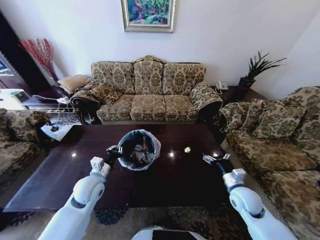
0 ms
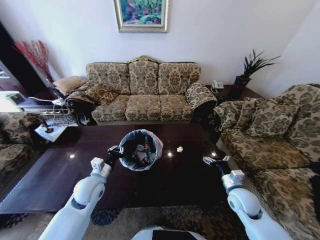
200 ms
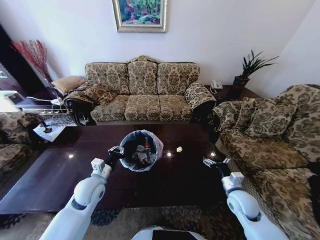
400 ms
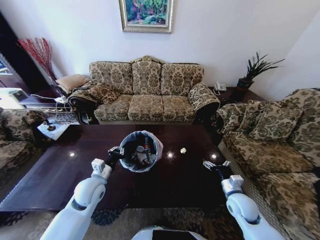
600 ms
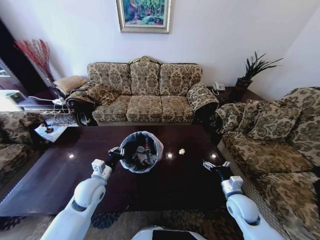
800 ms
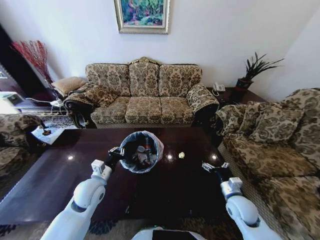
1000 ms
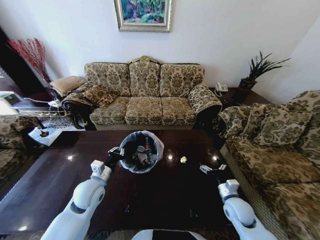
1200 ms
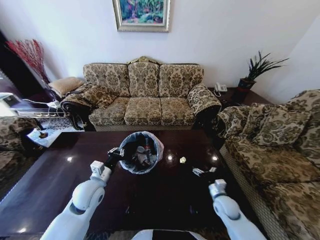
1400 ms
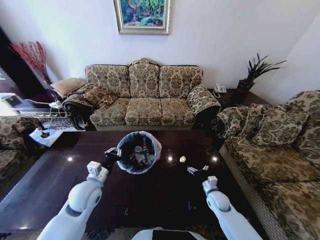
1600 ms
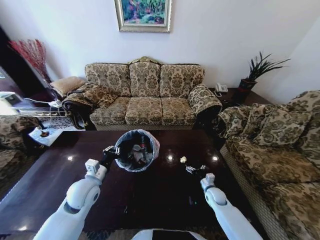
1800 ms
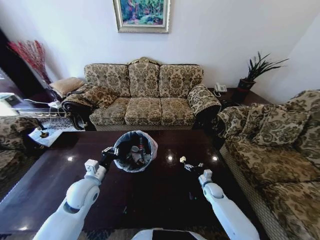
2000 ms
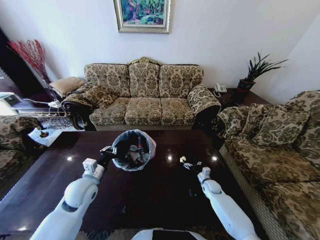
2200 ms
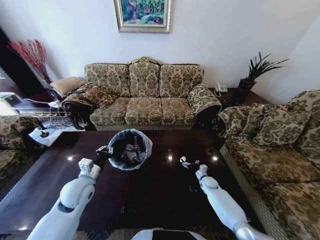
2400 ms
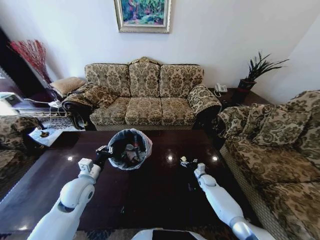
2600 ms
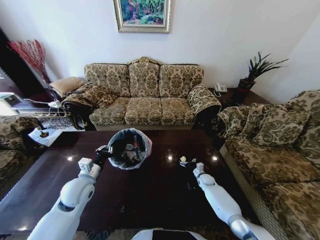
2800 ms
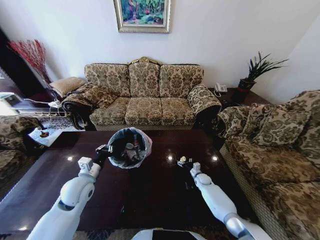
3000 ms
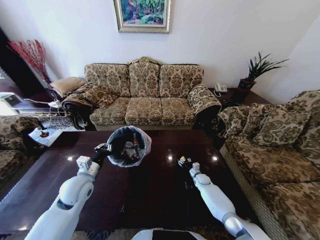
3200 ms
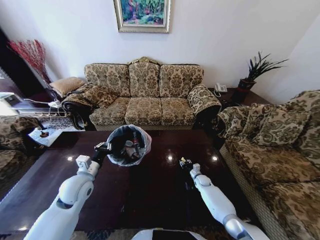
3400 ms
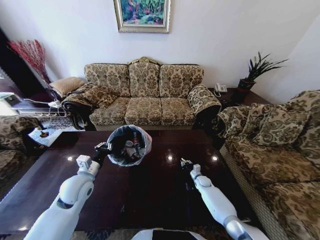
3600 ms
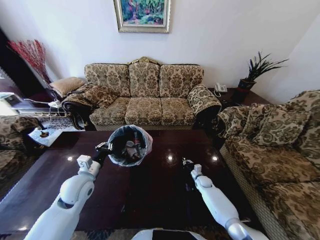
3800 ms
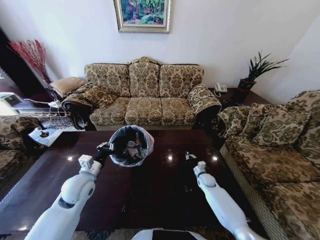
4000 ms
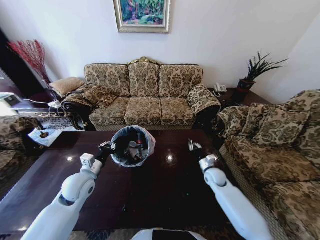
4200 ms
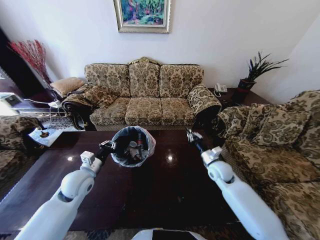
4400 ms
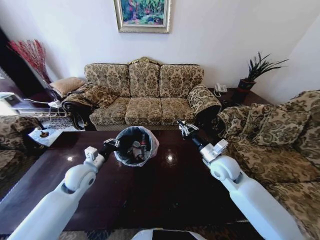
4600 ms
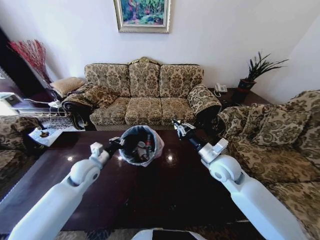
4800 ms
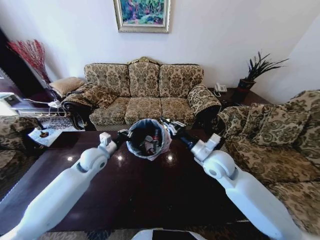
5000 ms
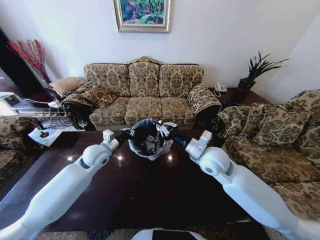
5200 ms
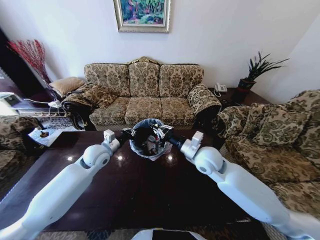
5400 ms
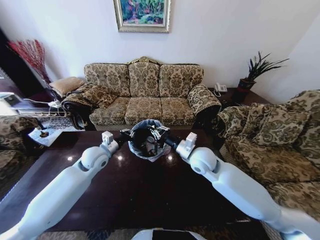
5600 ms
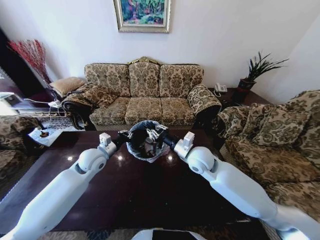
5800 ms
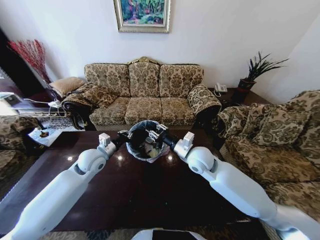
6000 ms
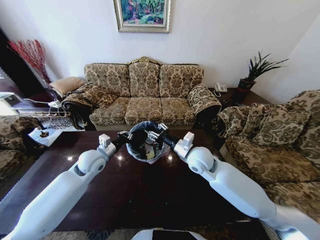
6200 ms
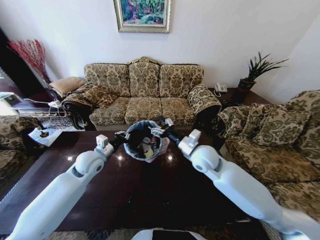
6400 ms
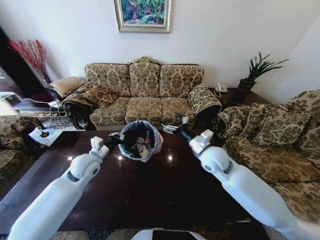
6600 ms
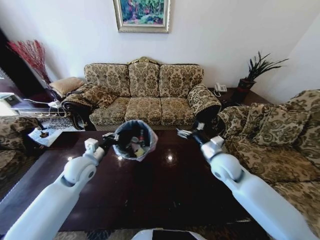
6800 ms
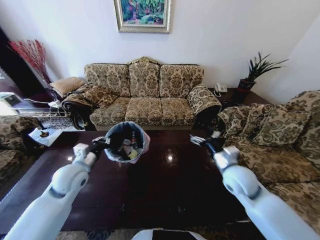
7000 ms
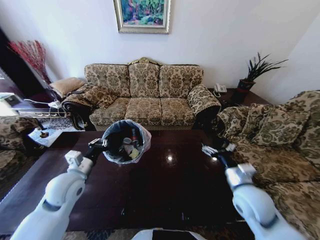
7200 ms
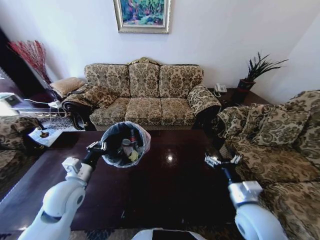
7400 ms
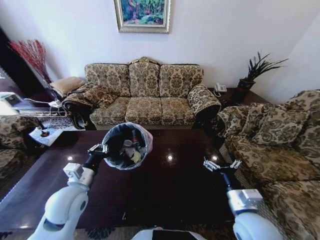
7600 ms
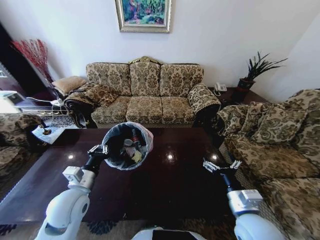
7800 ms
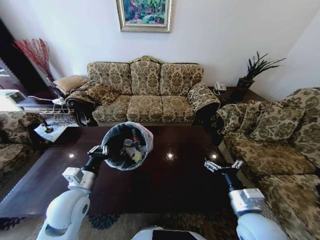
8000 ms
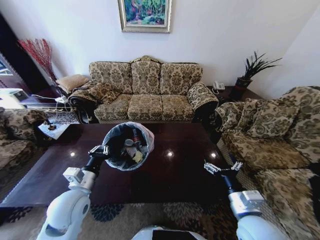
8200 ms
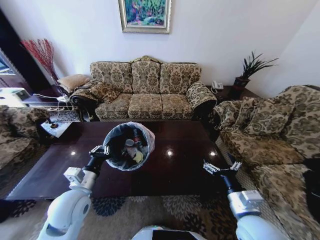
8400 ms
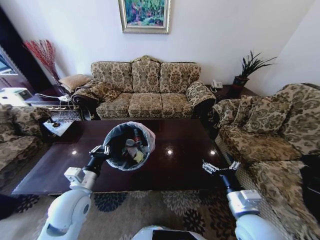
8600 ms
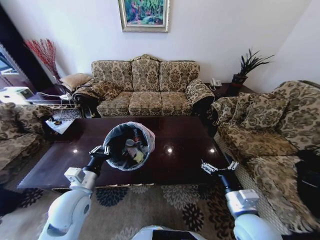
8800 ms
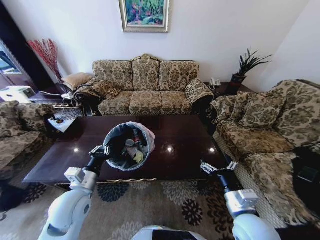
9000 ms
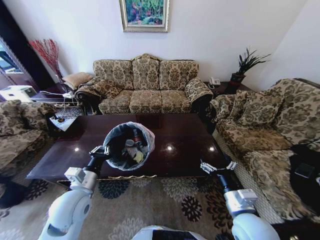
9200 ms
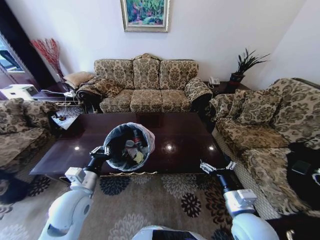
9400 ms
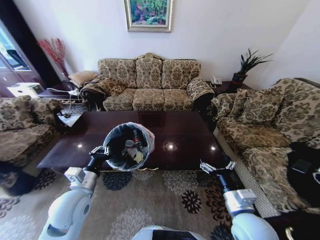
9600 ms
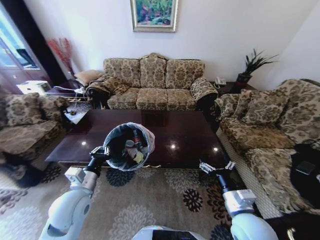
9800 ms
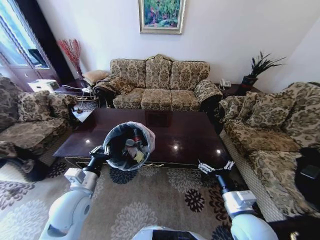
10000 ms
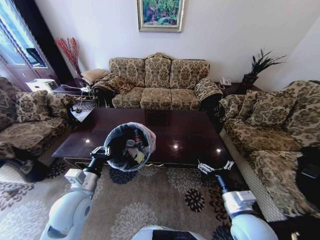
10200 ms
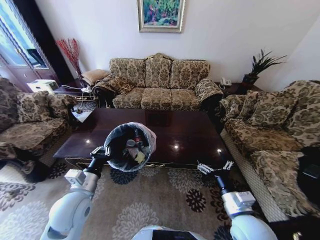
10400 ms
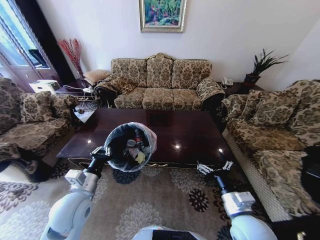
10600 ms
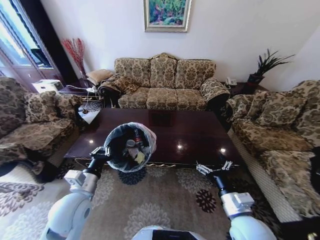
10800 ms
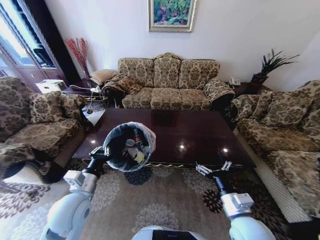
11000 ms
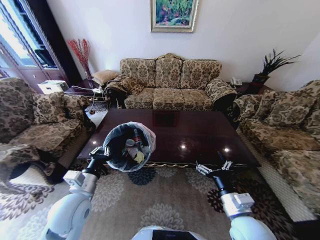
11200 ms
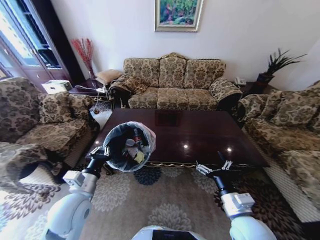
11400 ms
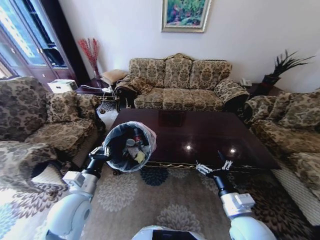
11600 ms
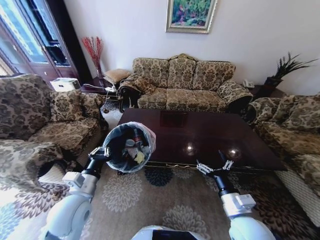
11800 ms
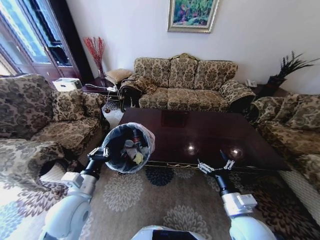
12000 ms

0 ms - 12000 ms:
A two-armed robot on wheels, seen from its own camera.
Task of the whole recording: Move to the front of the table and place the trash on the table into the trash bin.
0 ms - 1600 ms: The right gripper is displaced downward by some 15 cm.
1600 ms - 3000 ms: The right gripper heads forward and downward, covering roughly 15 cm.
3000 ms - 4400 ms: The right gripper is displaced upward by approximately 25 cm, and closes.
4400 ms - 6000 ms: The left gripper travels forward by some 10 cm, while the right gripper shifts about 15 cm to the left and upward.
6000 ms - 7600 ms: The right gripper moves backward and to the right, roughly 25 cm, and opens up, while the left gripper heads backward, covering approximately 15 cm.

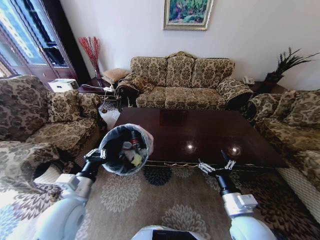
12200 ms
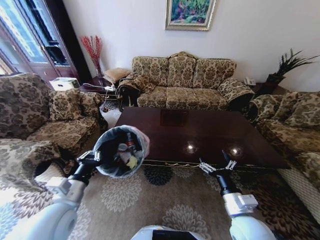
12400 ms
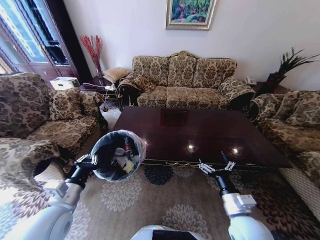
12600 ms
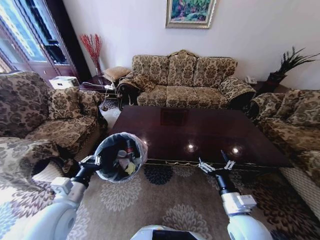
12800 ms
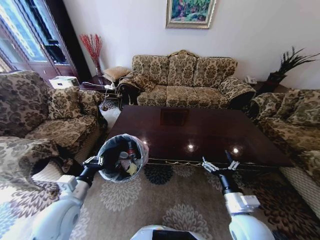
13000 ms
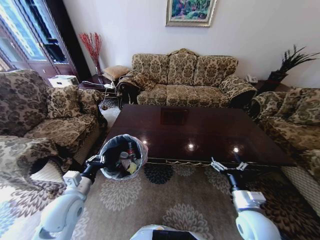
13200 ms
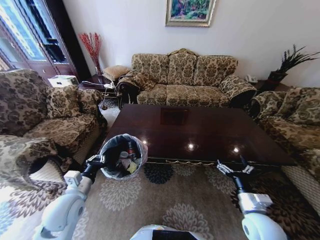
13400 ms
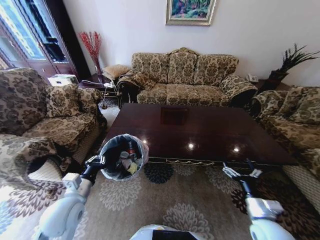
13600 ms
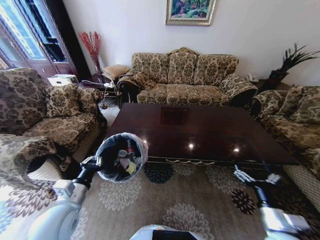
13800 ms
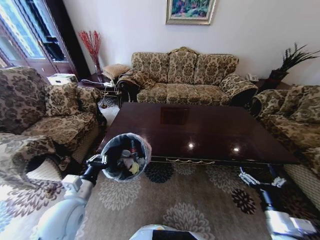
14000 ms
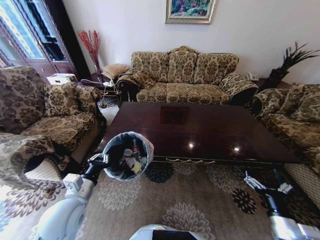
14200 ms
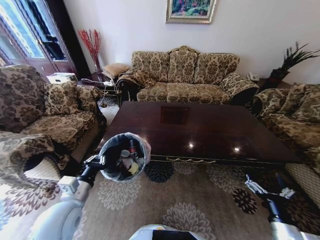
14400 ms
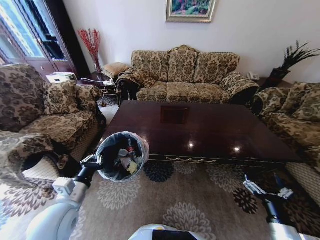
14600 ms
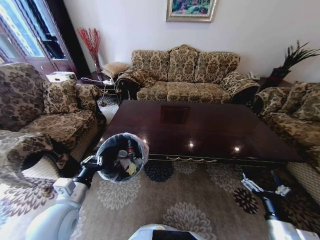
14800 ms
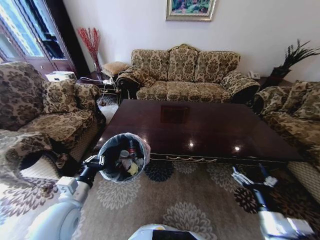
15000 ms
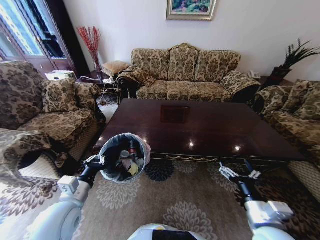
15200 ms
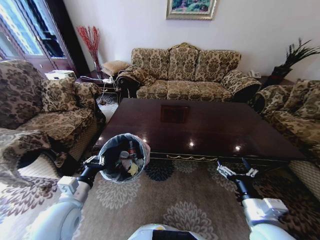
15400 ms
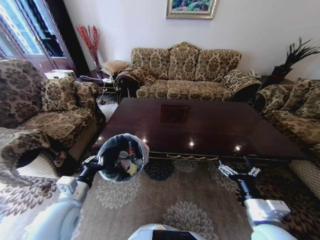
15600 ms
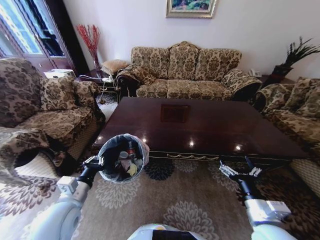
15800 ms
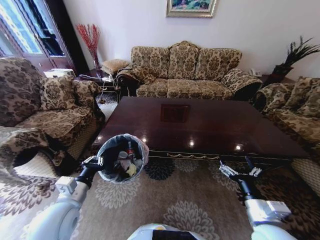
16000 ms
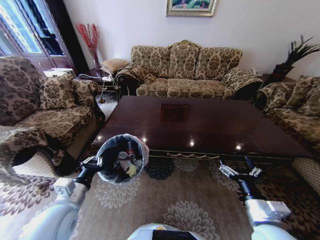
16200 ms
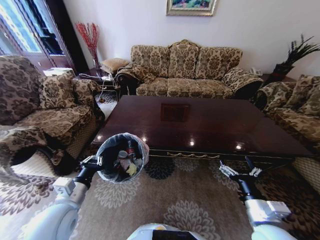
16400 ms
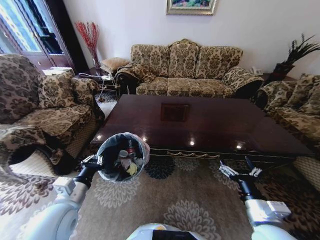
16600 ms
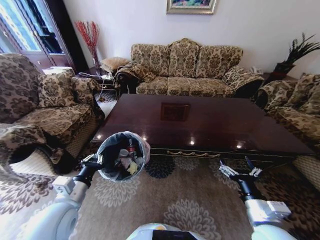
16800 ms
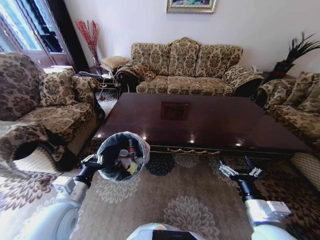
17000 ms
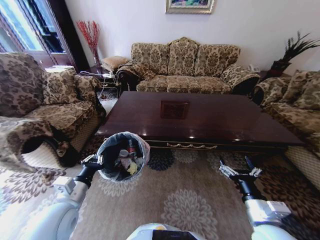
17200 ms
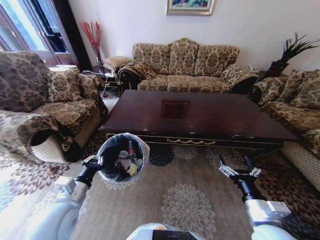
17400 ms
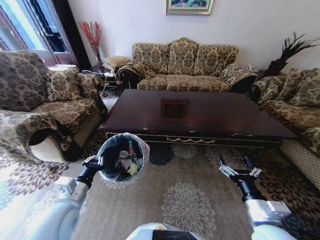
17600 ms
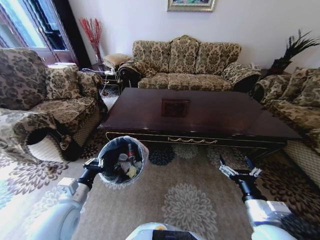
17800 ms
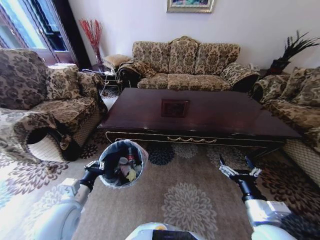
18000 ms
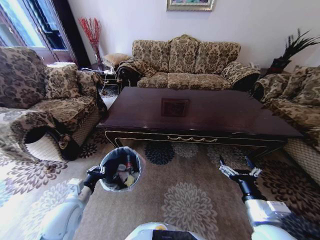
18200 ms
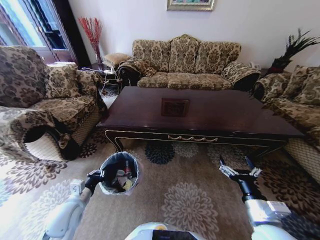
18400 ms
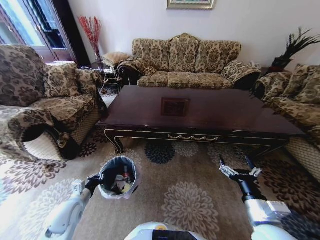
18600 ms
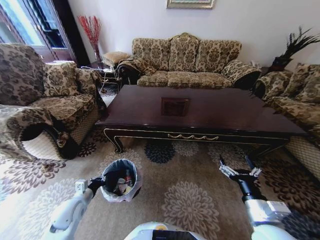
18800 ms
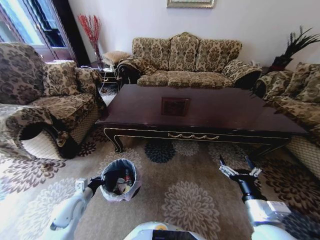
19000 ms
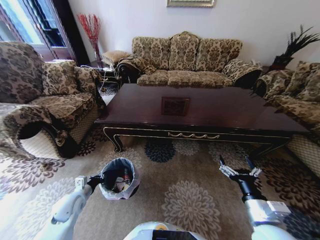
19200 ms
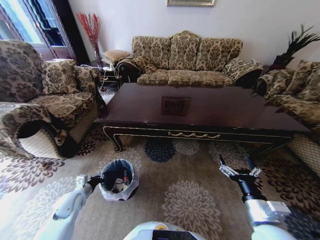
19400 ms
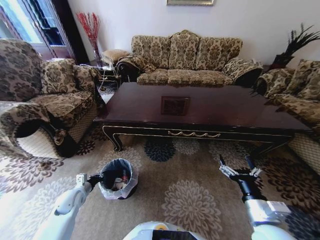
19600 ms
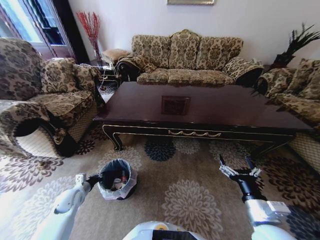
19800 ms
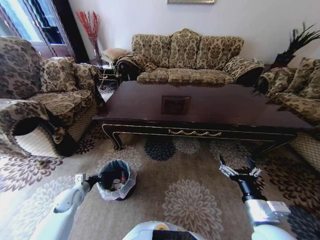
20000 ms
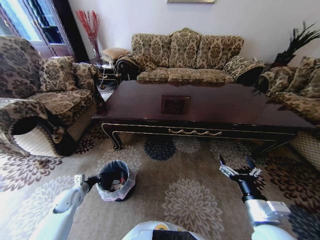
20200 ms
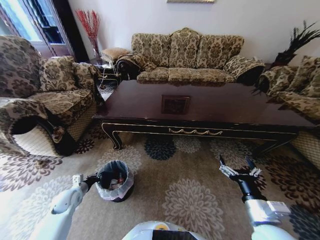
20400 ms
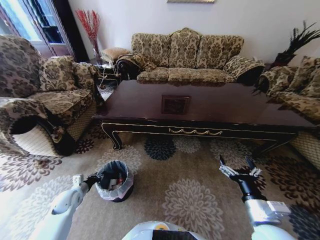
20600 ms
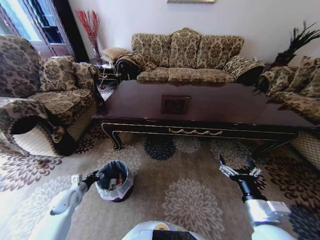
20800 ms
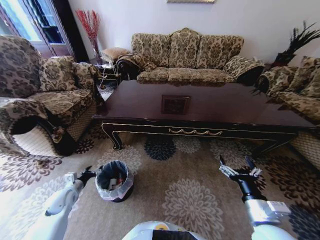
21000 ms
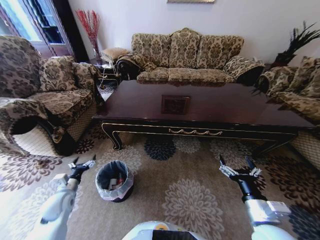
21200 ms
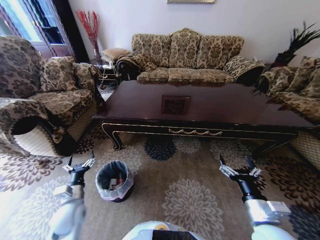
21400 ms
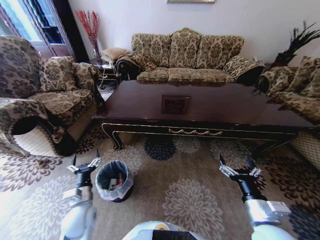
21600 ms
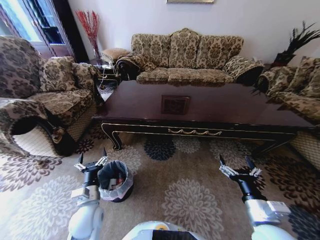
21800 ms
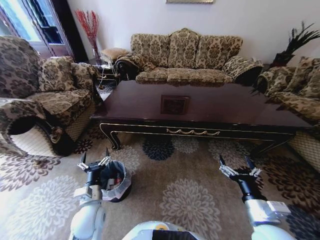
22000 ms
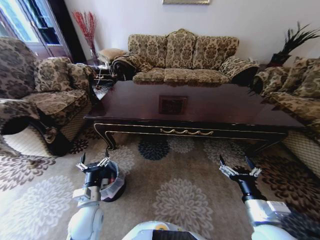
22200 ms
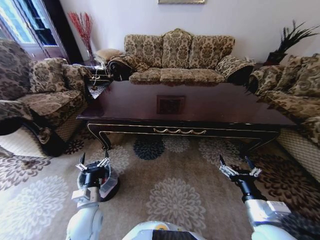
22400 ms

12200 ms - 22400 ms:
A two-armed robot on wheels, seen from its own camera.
Task of the whole recording: Move to the front of the table and place the trash on the table into the trash bin.
12200 ms - 13600 ms: The right gripper goes some 10 cm to the right and downward.
13600 ms - 15200 ms: The right gripper goes approximately 5 cm upward.
18000 ms - 19400 ms: The left gripper moves downward, to the left and forward, approximately 20 cm.
19400 ms - 21000 ms: The left gripper opens.
21000 ms - 22400 ms: The left gripper heads to the right, covering about 20 cm.
